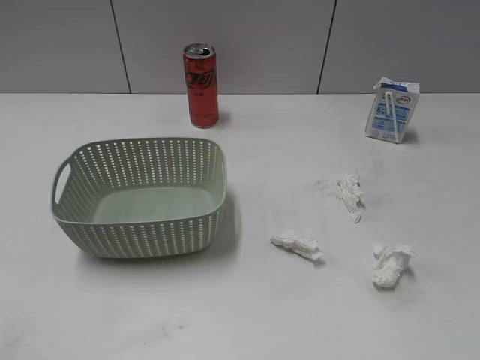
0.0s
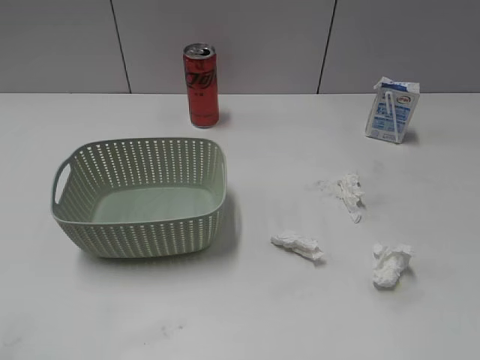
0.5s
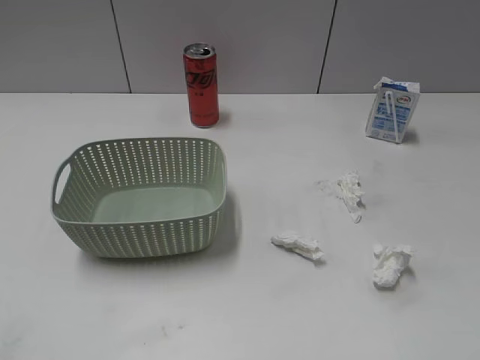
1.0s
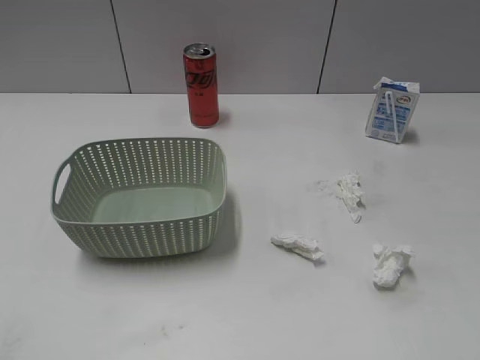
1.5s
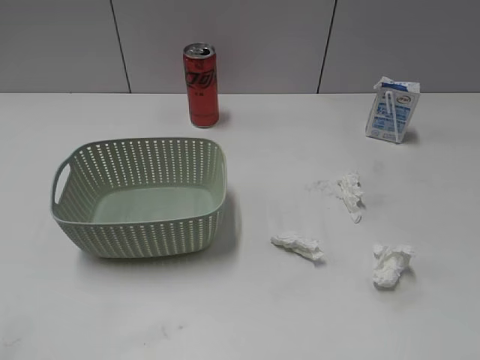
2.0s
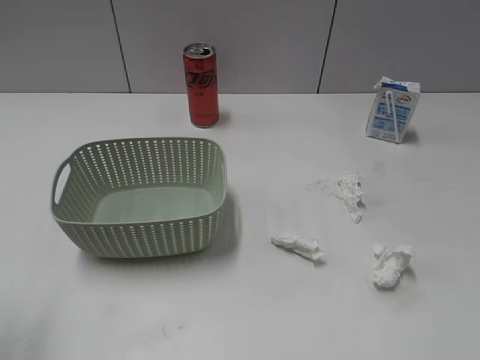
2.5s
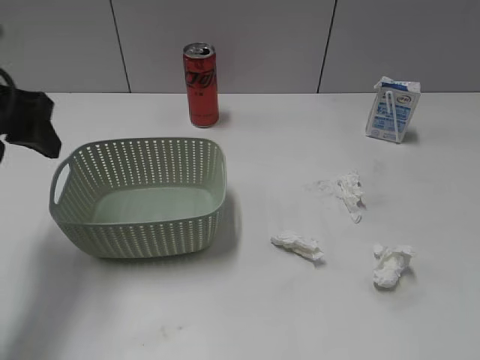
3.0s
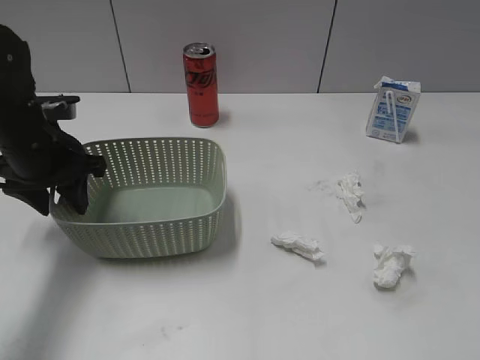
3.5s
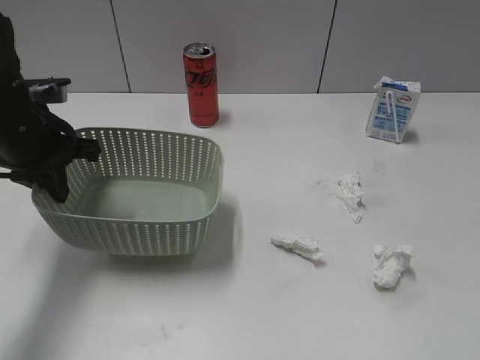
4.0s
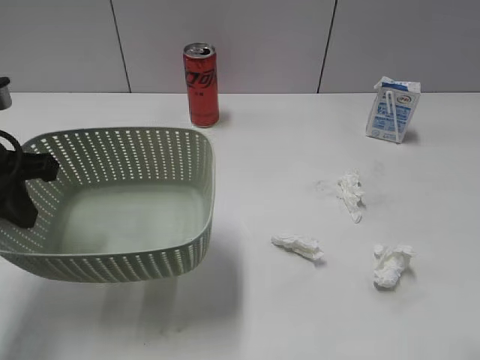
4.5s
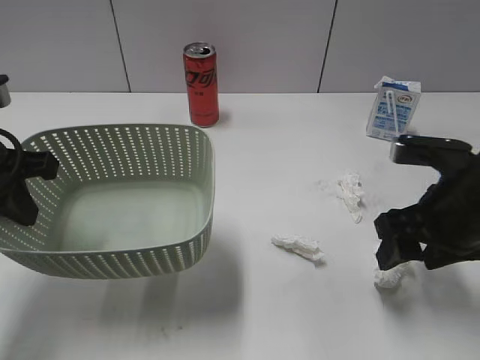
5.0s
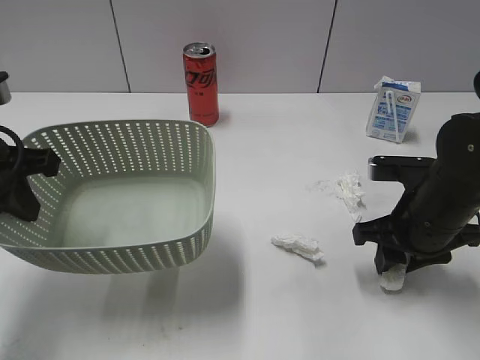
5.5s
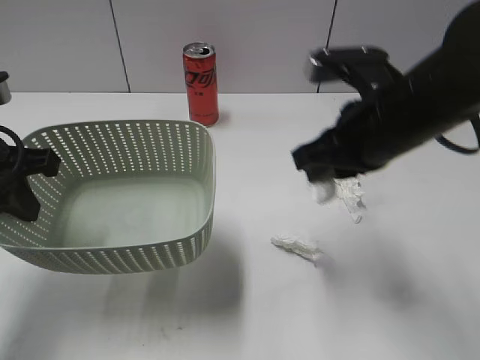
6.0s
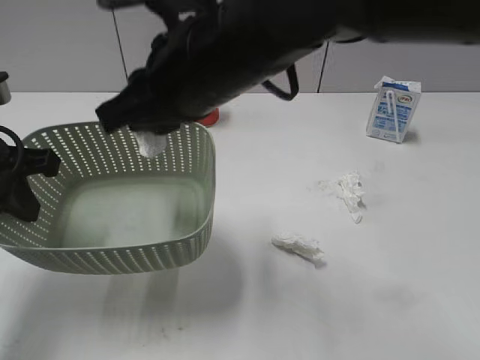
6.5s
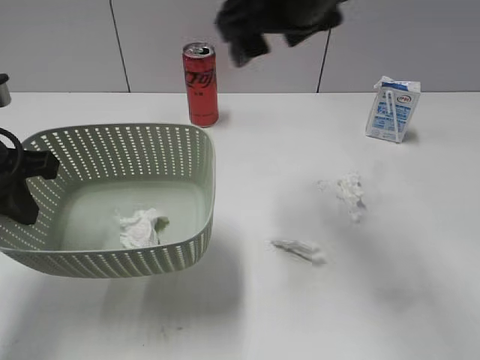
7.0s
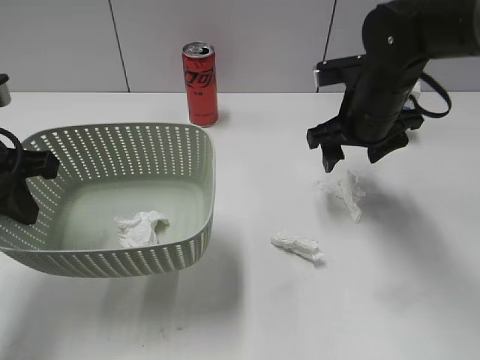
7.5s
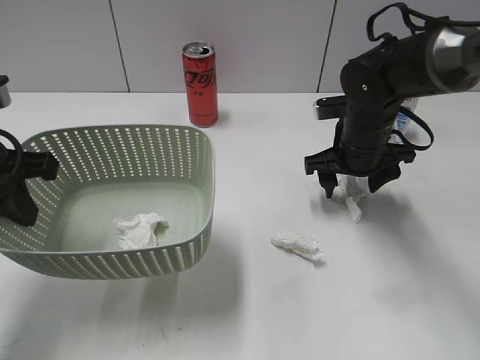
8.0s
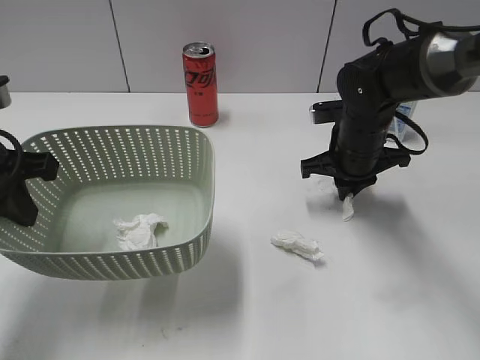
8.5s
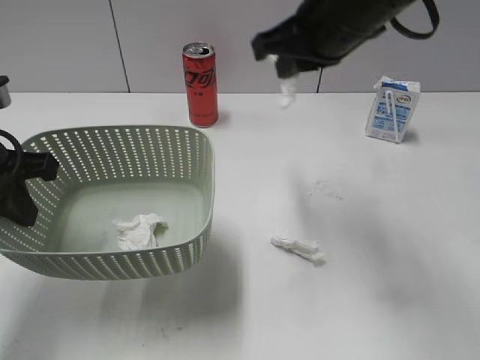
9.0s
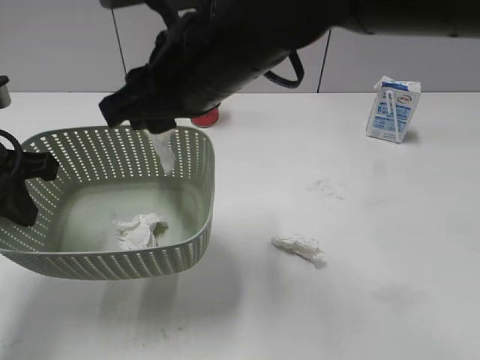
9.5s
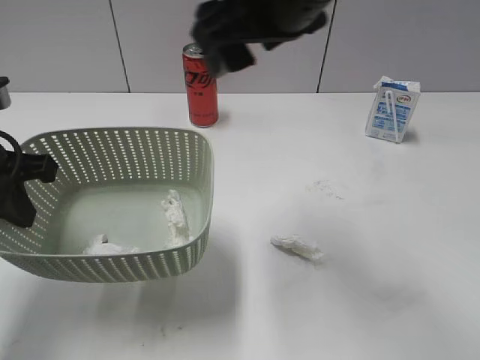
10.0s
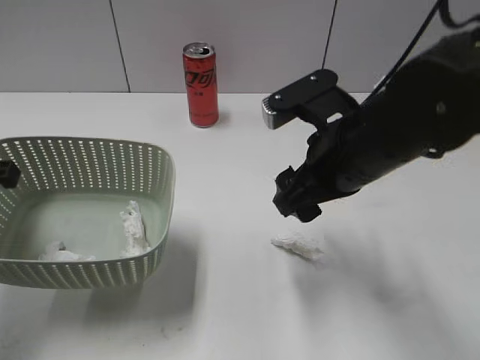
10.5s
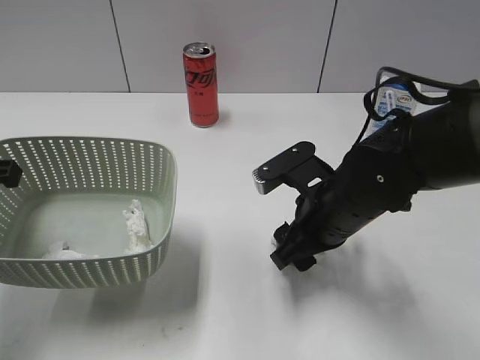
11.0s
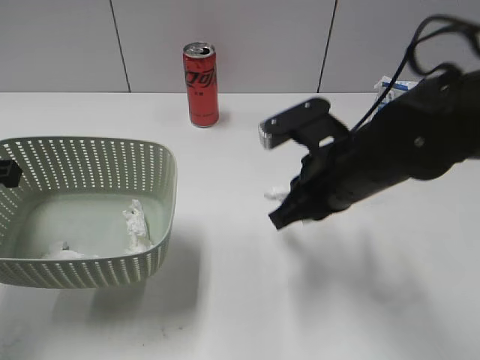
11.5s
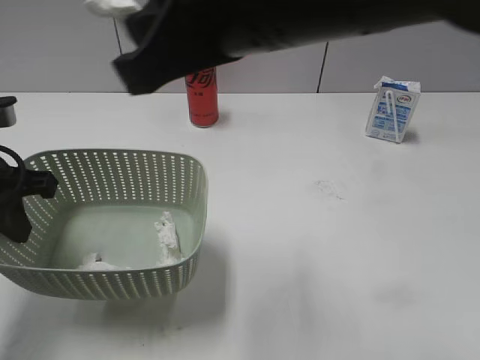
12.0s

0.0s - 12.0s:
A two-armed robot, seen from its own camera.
Step, 3.0s - 4.0s: Grasp the basket with left gripper.
Step, 4.5s - 5.5s: Grasp the waste paper with right gripper.
Step, 6.0s - 6.5s: Place the waste paper in the basket with right gripper.
Step, 7.0s - 8.5s: Grasp the waste paper with right gripper.
Step, 9.0s - 9.5s: Place the waste paper in the basket with right gripper.
Step, 10.0s - 11.5s: Grasp the waste paper with right gripper.
2.0s - 4.0s: The left gripper moves forward, some 35 cm, and closes up.
4.0s - 6.0s: The left gripper heads backward, covering about 10 cm. Meanwhile the right gripper goes about 30 cm forward and to the left, and closes its fingers.
6.0s - 8.0s: The right gripper heads downward and forward, covering roughly 15 cm, and opens up.
8.0s - 10.0s: The right gripper shifts about 25 cm upward, to the left and backward, and closes and opens again.
10.0s - 12.0s: The right gripper moves backward, some 5 cm, moves roughly 20 cm downward and comes back, and closes.

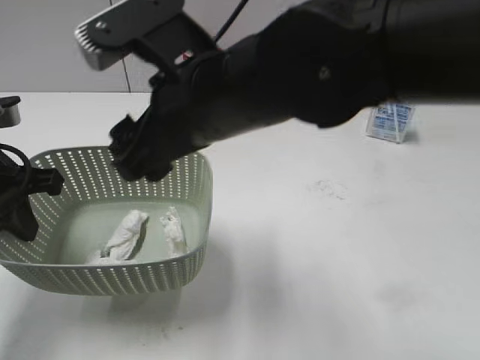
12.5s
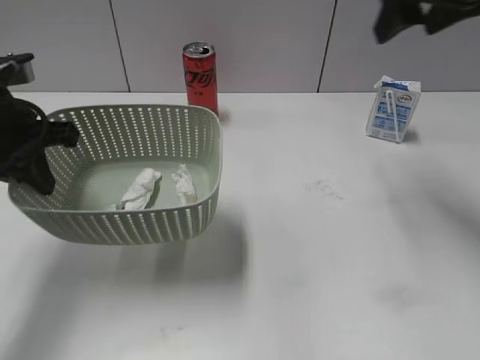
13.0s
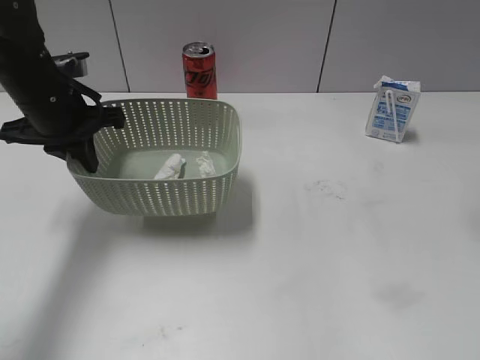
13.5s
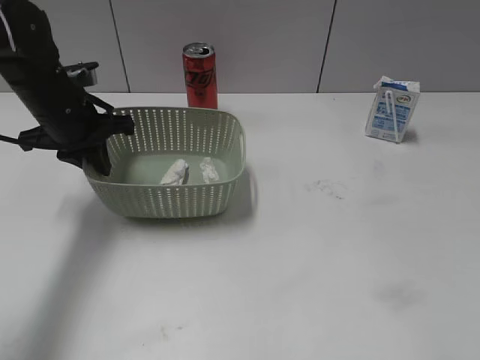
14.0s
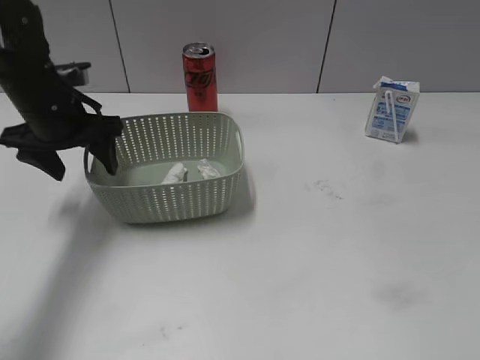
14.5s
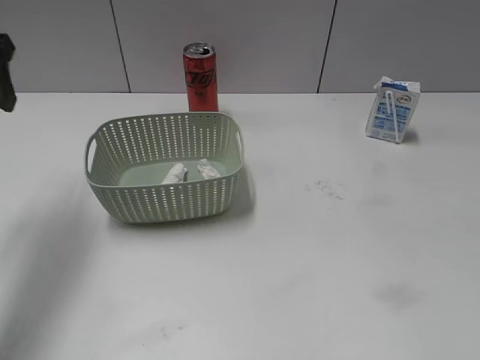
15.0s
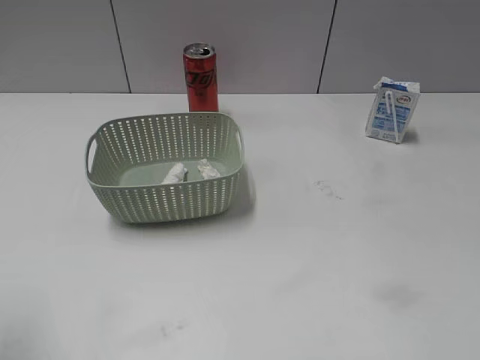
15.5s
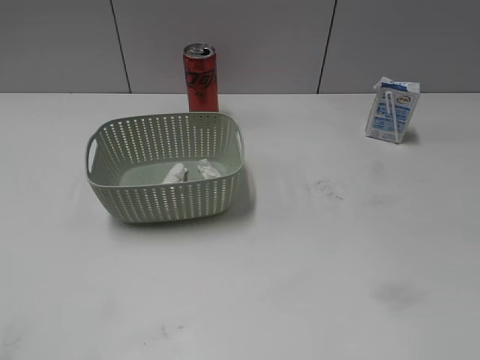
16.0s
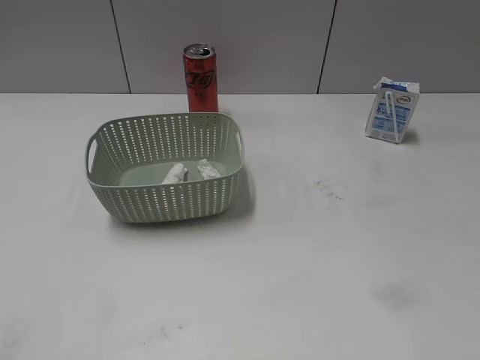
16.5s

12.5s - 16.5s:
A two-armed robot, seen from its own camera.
Step, 12.5s - 14.5s: Place the basket on the table with left gripper.
12.5s - 14.5s: The right gripper is displaced to the right and backward by roughly 40 cm. Meanwhile the left gripper moves forward, about 10 cm, and opens up.
14.5s - 16.5s: The left gripper moves backward, about 35 cm.

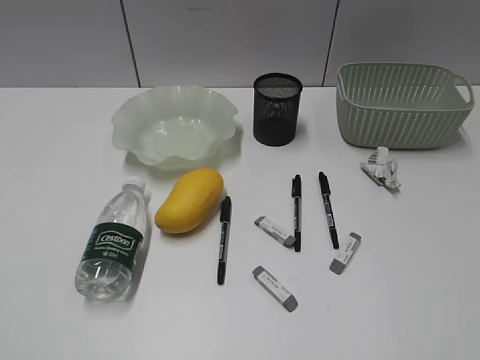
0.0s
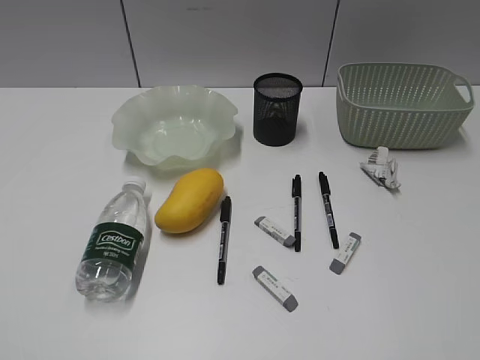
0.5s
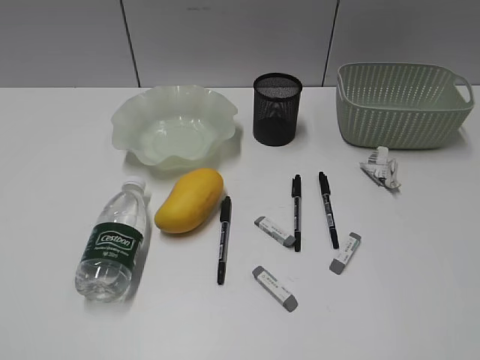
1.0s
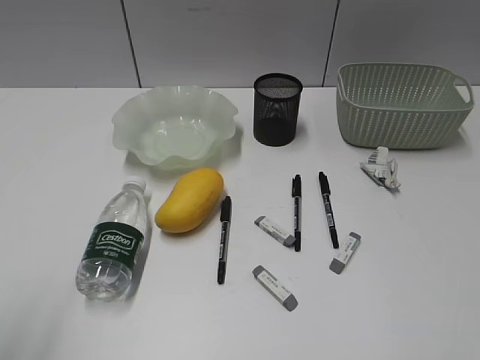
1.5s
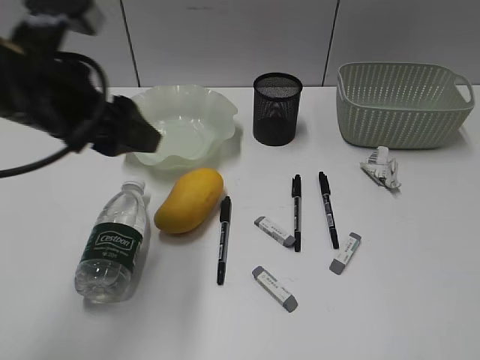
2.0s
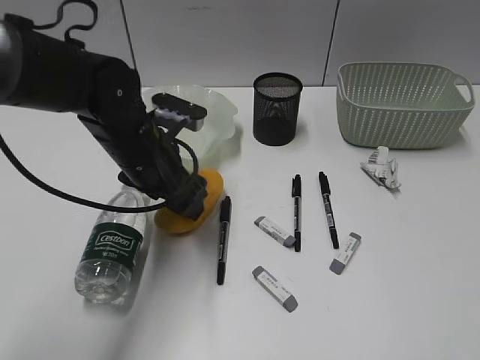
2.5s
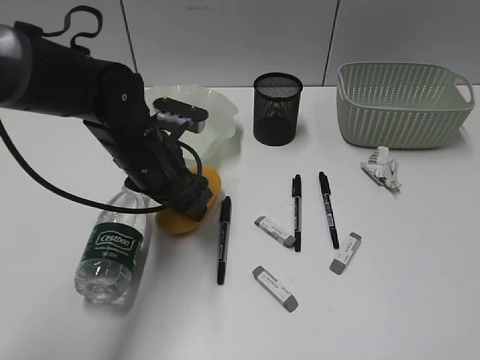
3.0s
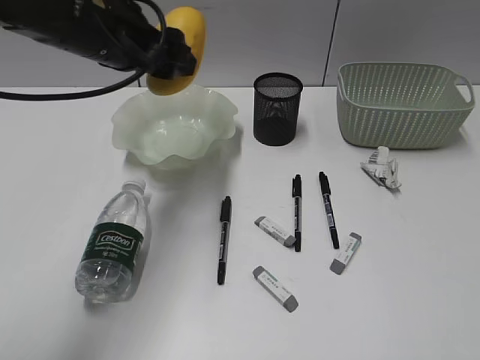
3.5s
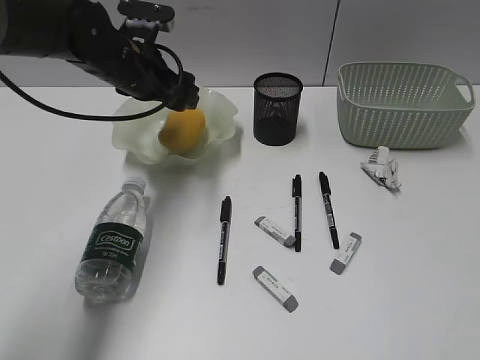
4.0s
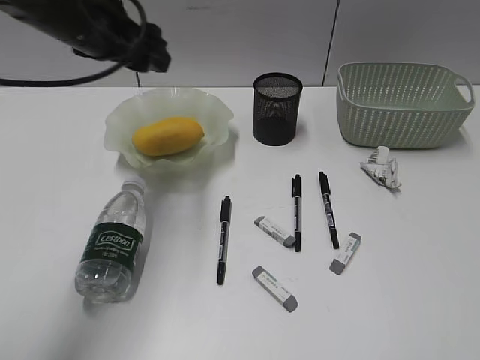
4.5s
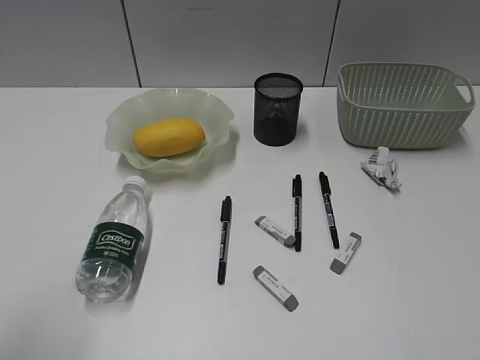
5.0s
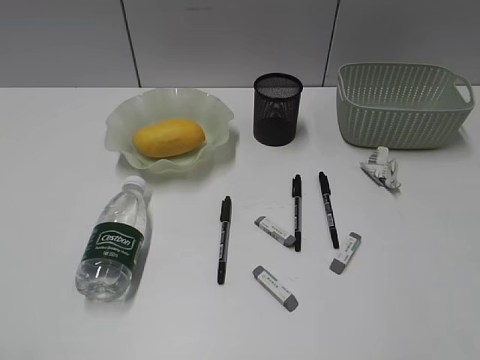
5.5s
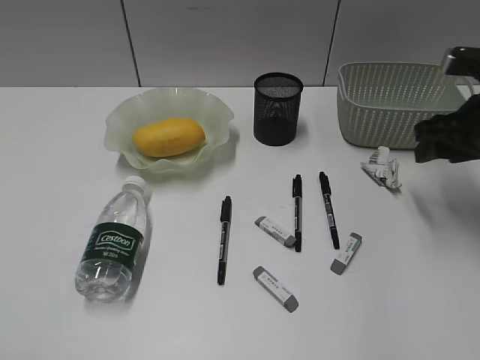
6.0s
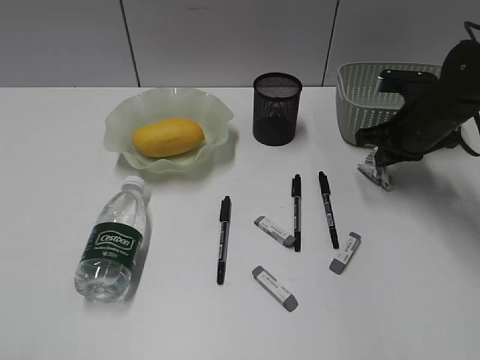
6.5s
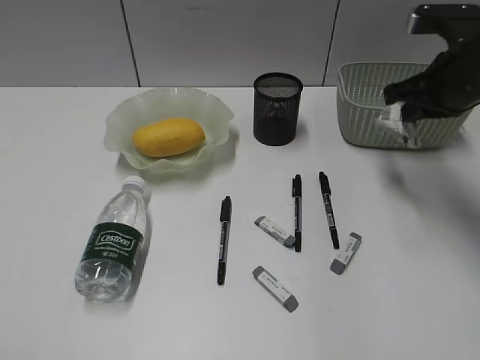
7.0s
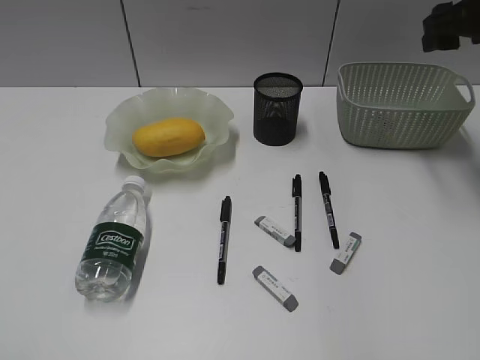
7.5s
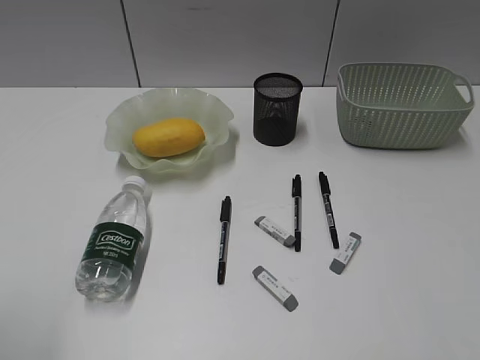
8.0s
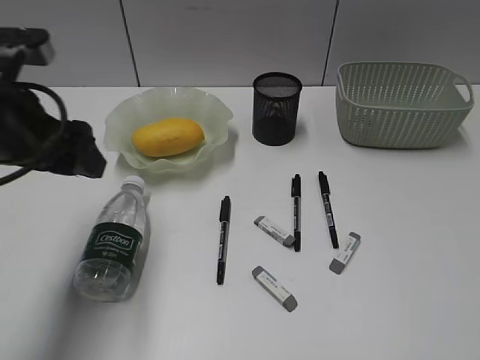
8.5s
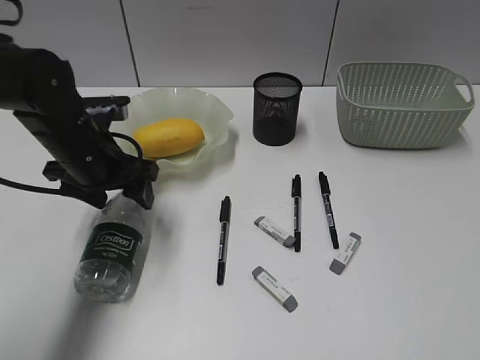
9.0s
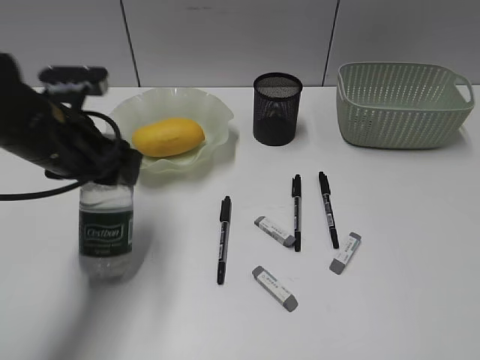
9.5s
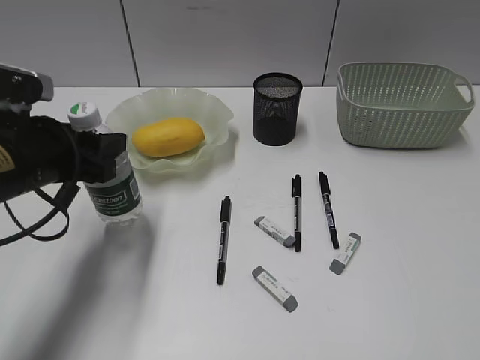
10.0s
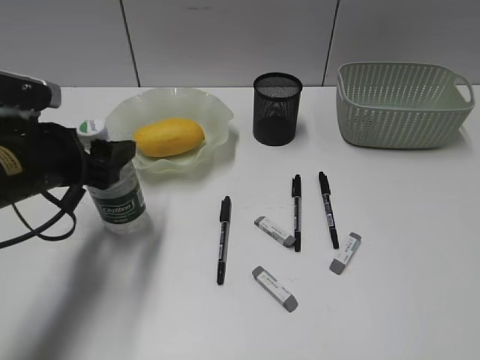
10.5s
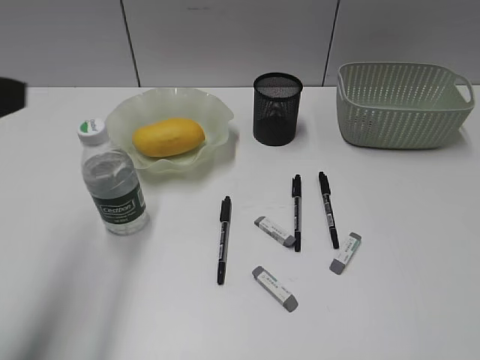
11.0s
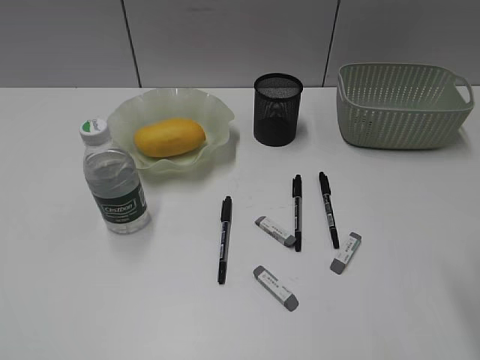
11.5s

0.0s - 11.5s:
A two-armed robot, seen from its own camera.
Step, 1.5s - 2.5s: Grasp the mango with left gripper.
Step, 3.0s - 4.0s: Place the mango in the plate with left gripper.
Step, 4.5s - 6.5s: Grasp the waste paper with right gripper.
Step, 7.0s - 7.5s: Place the waste paper in the basket with right gripper.
Step, 8.0s - 9.0s: Grasp the bottle with left gripper.
Step, 9.5s - 10.5s: Stand the bottle with left gripper.
2.0s - 4.0s: The left gripper shifts about 15 cm forward.
4.0s - 6.0s: The left gripper travels backward and to the left by some 50 cm. The right gripper shifts some 35 cm forward.
6.0s - 7.5s: The right gripper heads upward and forward, covering approximately 10 cm, and closes and opens again.
7.5s - 9.5s: The right gripper heads backward, covering roughly 40 cm; the left gripper is displaced forward and to the right by some 35 cm.
9.5s - 11.5s: The left gripper shifts about 35 cm backward and to the left, while the right gripper is displaced forward by approximately 15 cm.
